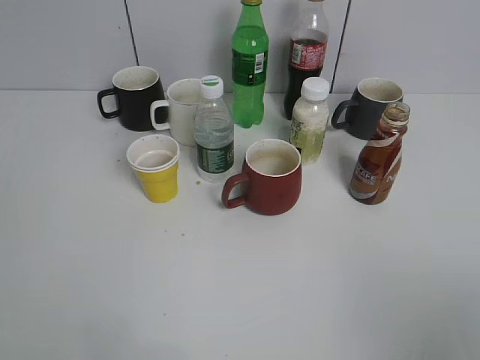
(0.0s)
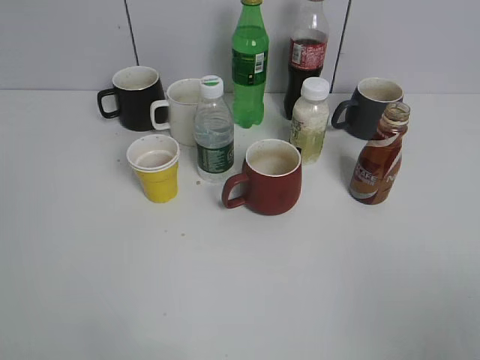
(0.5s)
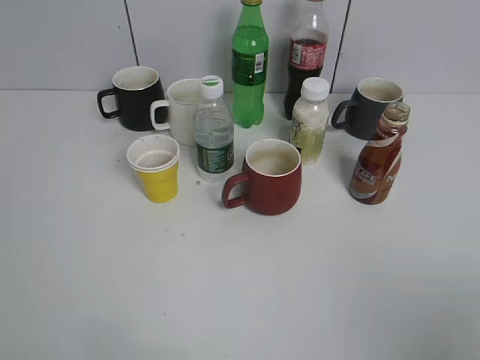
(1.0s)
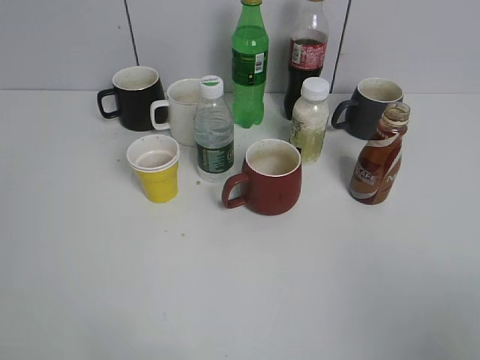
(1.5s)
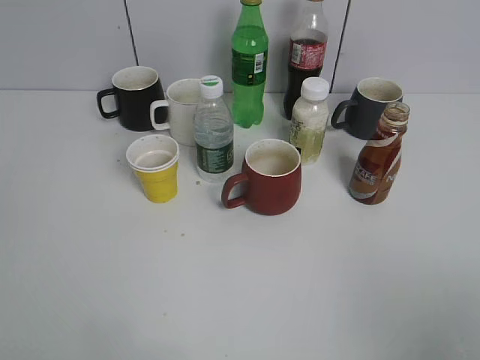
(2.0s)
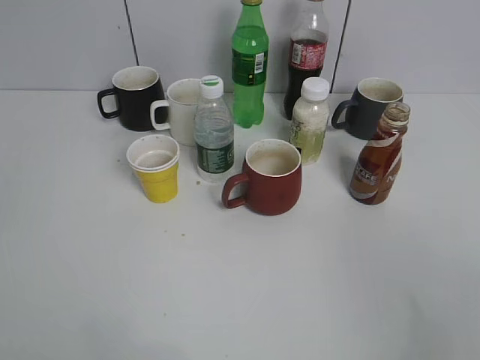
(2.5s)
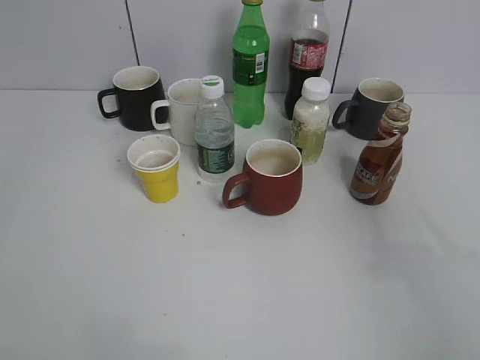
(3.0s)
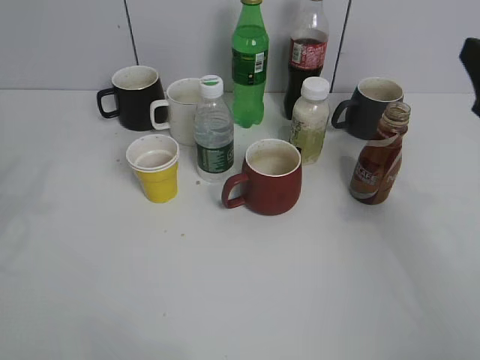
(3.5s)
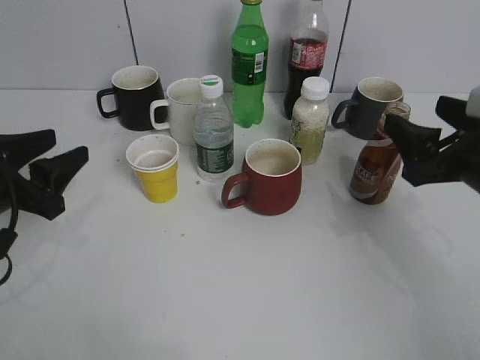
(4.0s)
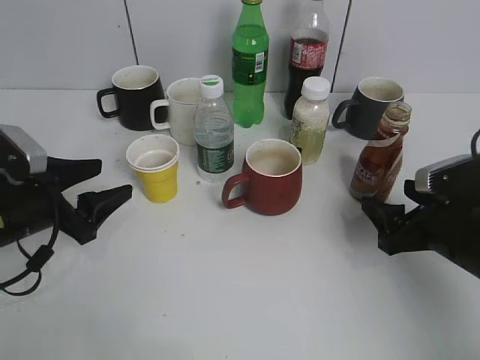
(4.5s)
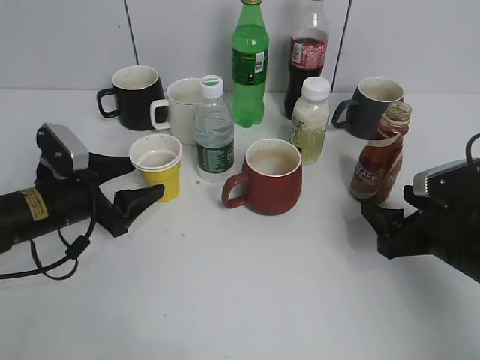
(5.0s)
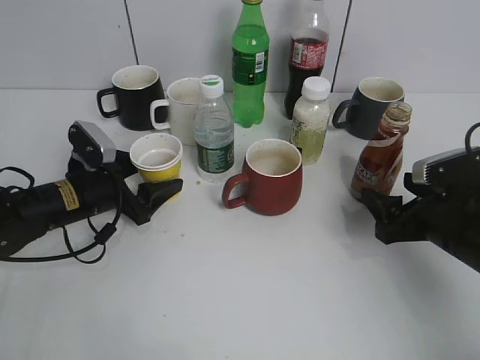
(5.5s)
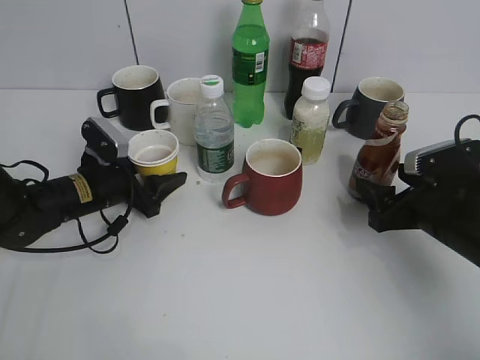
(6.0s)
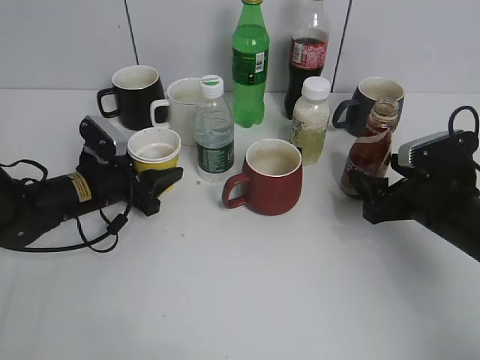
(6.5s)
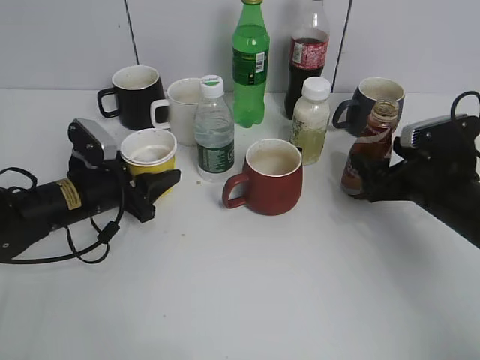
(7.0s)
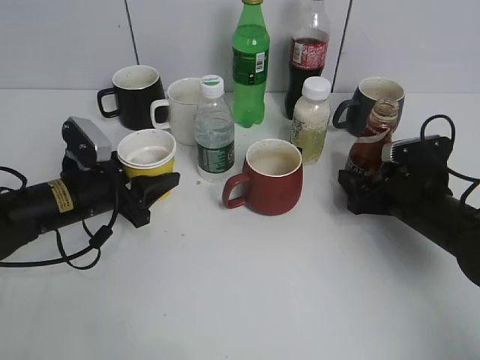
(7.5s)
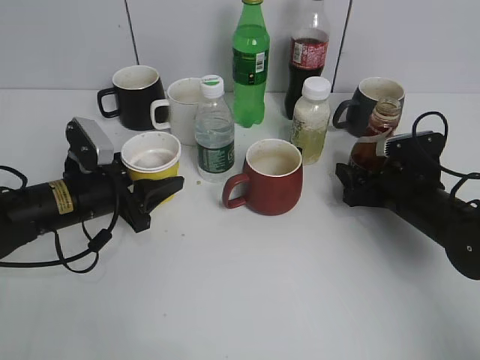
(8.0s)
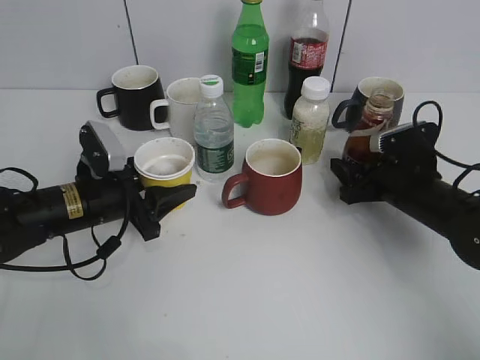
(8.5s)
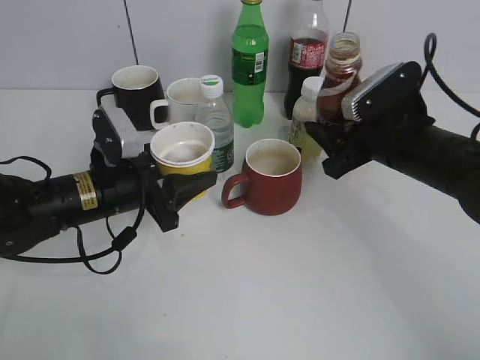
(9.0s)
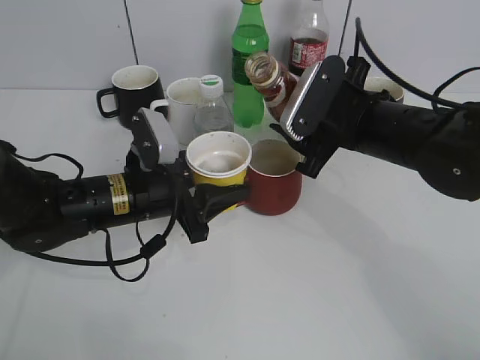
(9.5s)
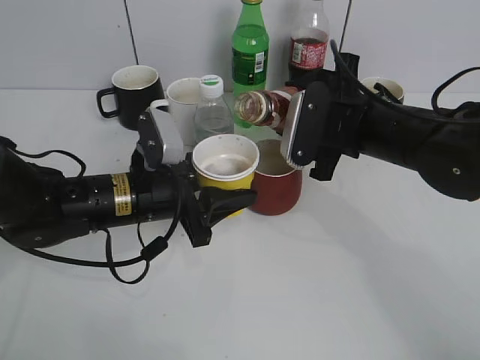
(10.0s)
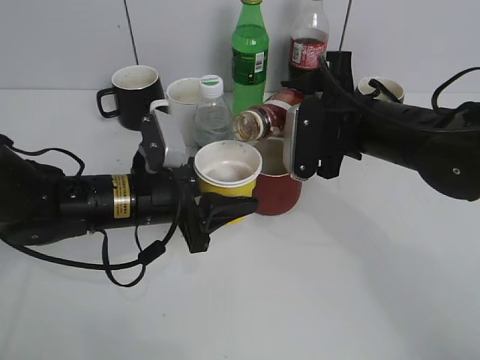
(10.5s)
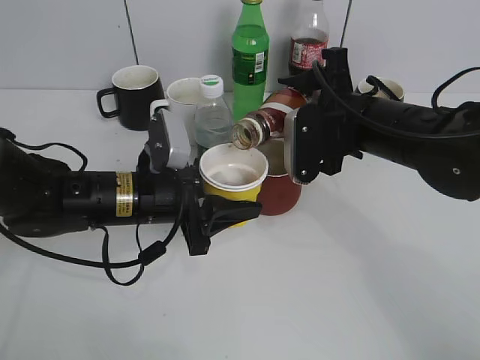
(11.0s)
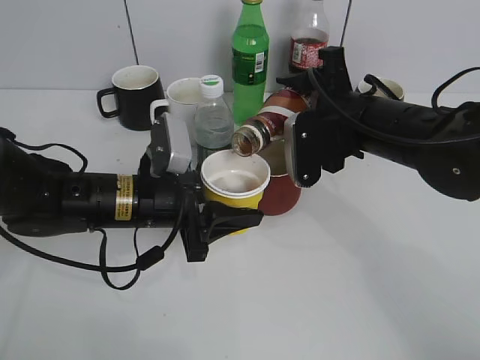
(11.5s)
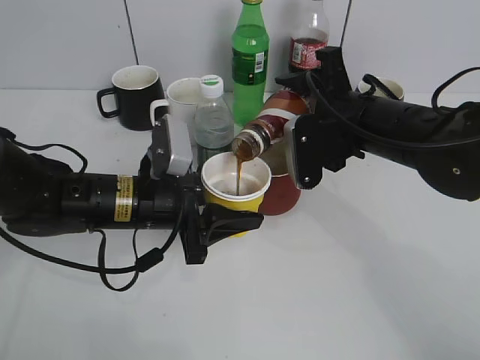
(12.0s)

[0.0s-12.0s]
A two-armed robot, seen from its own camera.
Step, 2.5s to 5.5s: Grasp the yellow paper cup with left gripper.
Step, 6.0s to 8.0s: Grasp the bottle with coffee with right gripper.
2.0s to 4.0s: Both grippers travel together forward and downward, roughly 25 cm.
4.0s to 6.0s: The left gripper goes roughly 15 cm forward, downward and to the right. The right gripper heads downward, covering approximately 10 cm.
6.0s to 8.0s: The left gripper closes up, while the right gripper heads forward, covering about 5 cm.
8.0s to 10.0s: The right gripper moves upward and to the left, approximately 15 cm, and closes up; the left gripper heads to the right, covering approximately 10 cm.

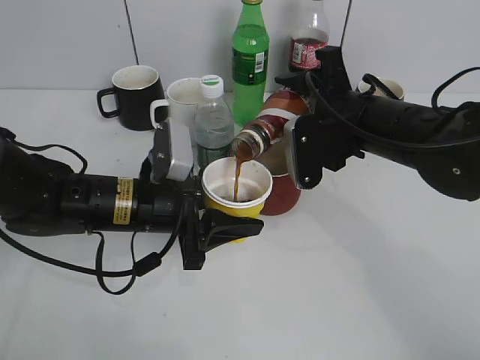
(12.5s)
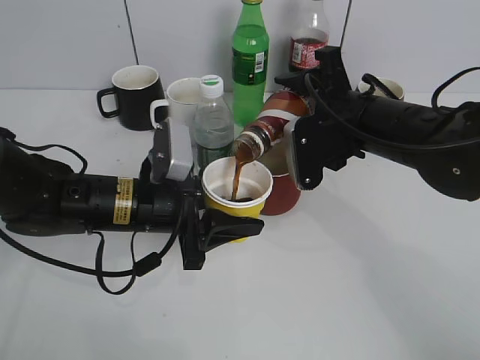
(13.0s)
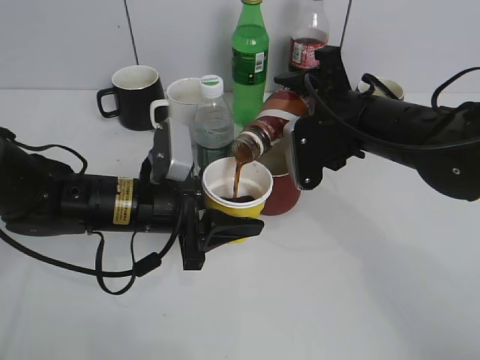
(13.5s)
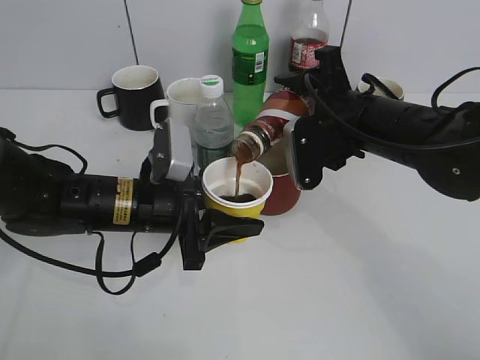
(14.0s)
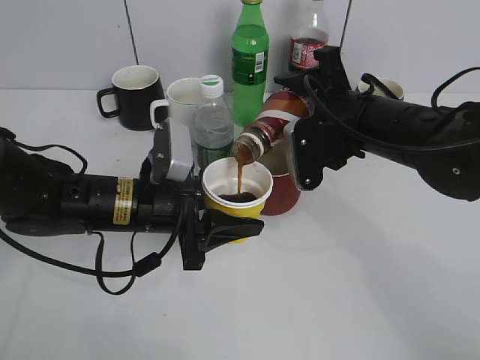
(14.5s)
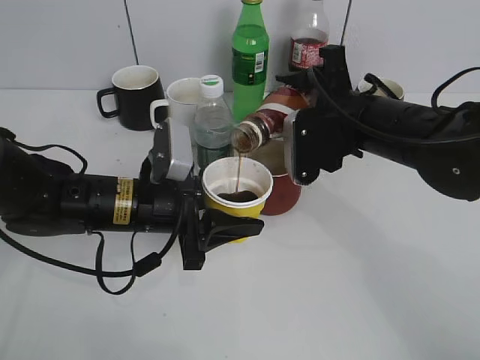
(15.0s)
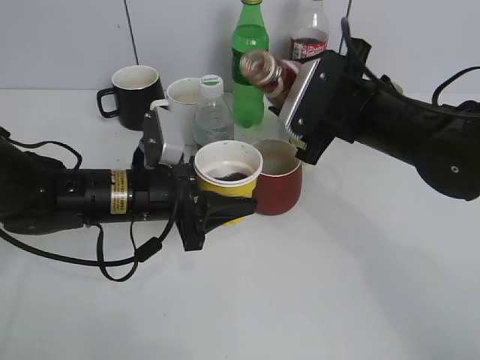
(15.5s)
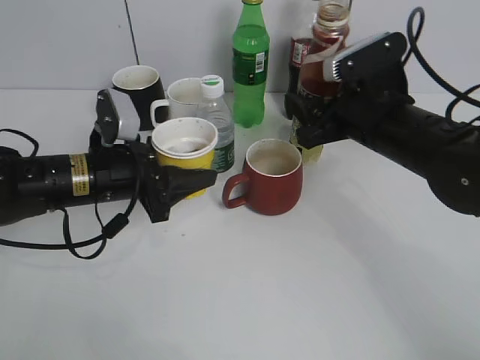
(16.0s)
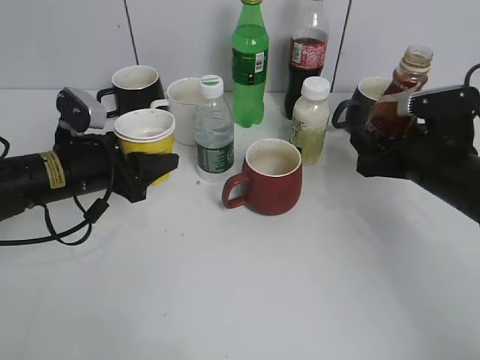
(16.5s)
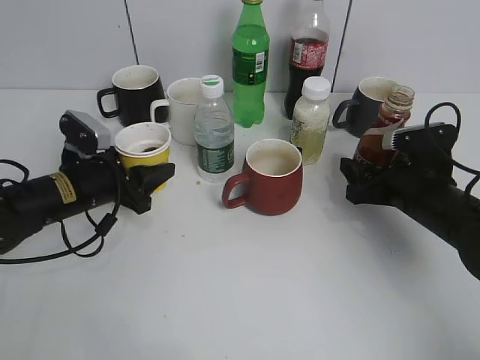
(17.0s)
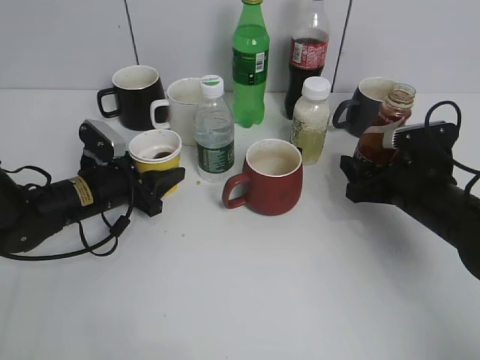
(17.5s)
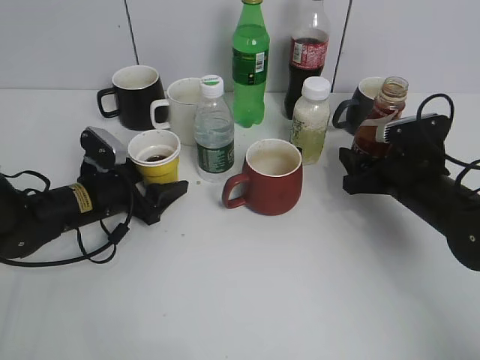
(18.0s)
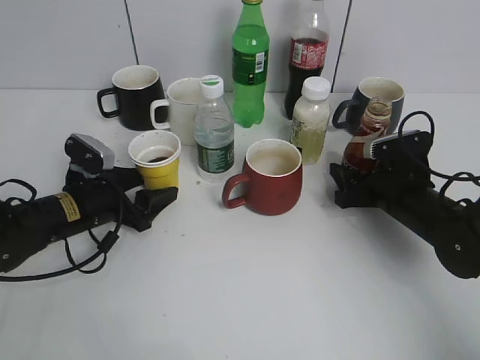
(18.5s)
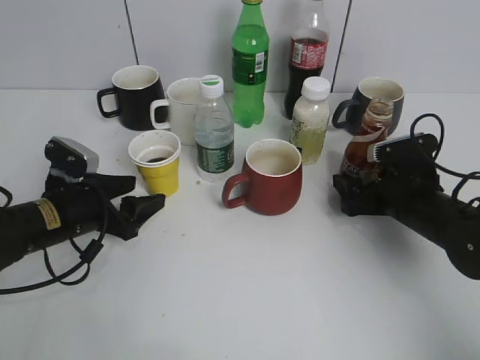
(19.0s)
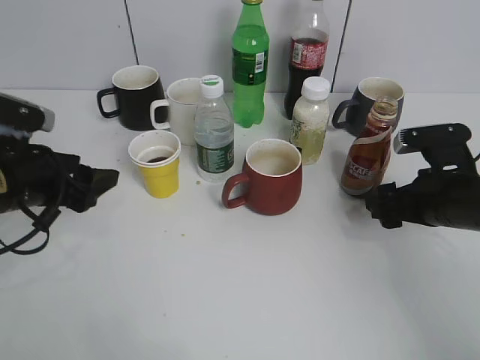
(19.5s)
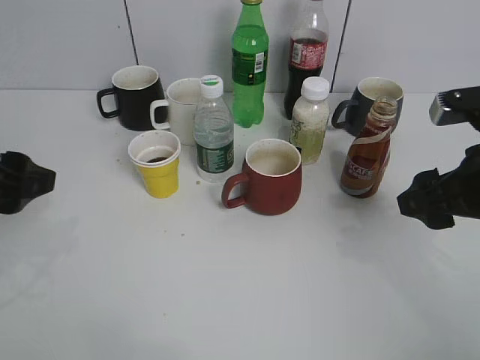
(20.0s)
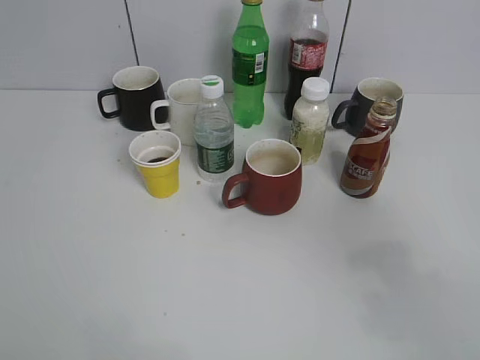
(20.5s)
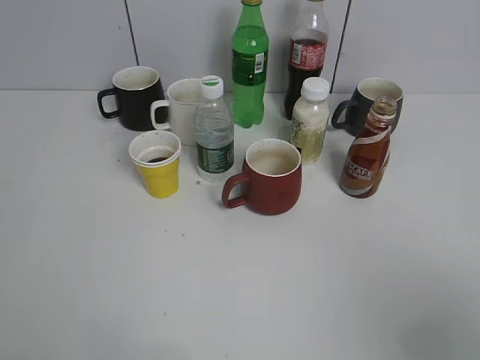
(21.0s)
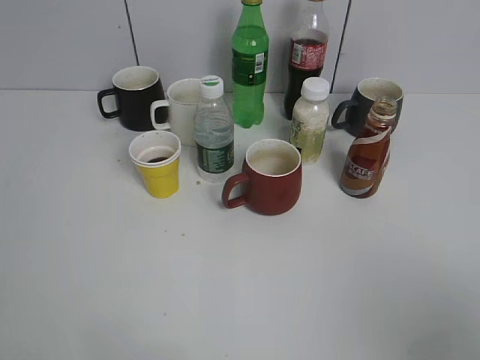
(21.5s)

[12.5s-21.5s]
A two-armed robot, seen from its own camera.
Step, 12.5s to 15.5s: Pour the coffee from bottle to cup with right gripper.
Step, 16.0s to 19.0s: Place the coffee bottle on the table with right gripper.
12.5s to 14.5s: The two grippers keep their place.
14.5s to 17.0s: The right gripper shifts some 15 cm downward and to the right, while the left gripper is displaced to the left and forward by some 10 cm.
17.0s to 19.5s: The right gripper opens. Meanwhile the left gripper is displaced upward and backward by about 10 cm, and opens its fingers.
19.5s to 21.5s: Both grippers travel together backward and upward, some 30 cm. The left gripper closes up.

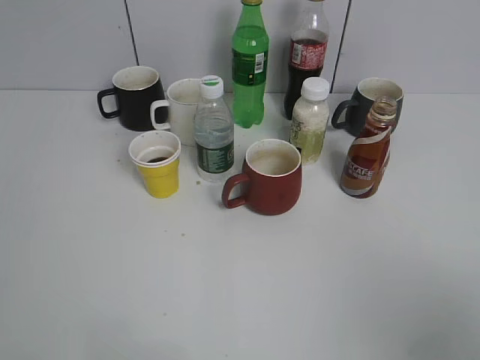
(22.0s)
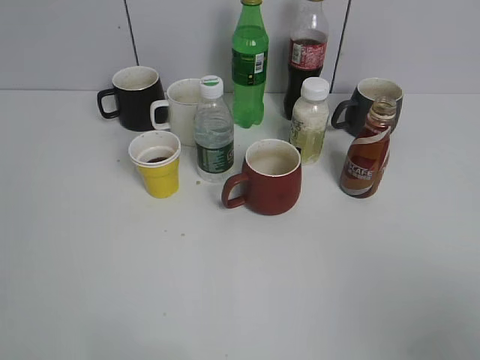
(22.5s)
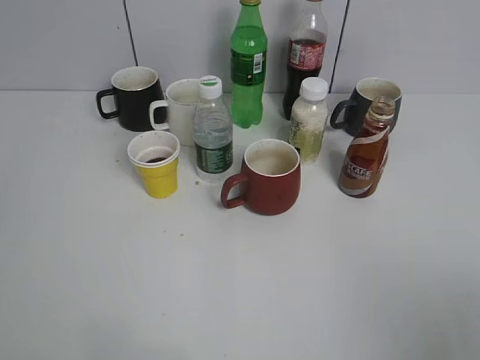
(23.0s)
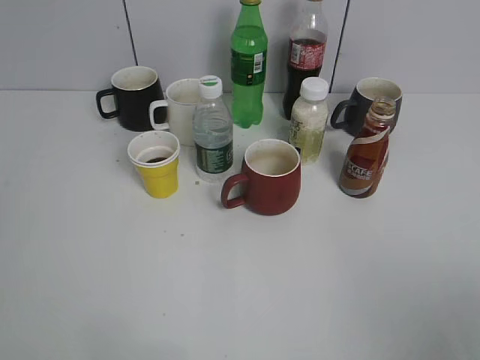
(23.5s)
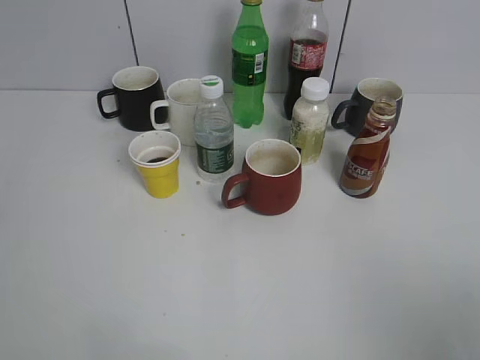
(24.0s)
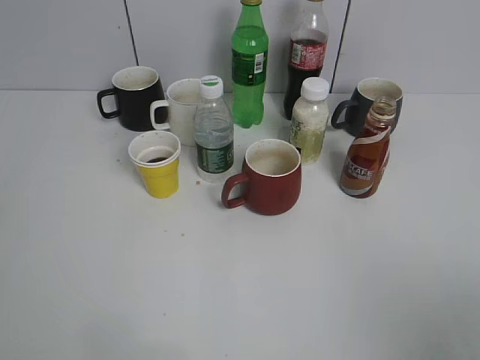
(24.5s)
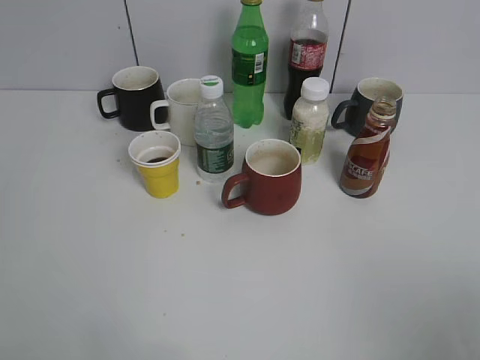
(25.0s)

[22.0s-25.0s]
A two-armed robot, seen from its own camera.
23.5s to 25.0s: Both grippers stay about where they are.

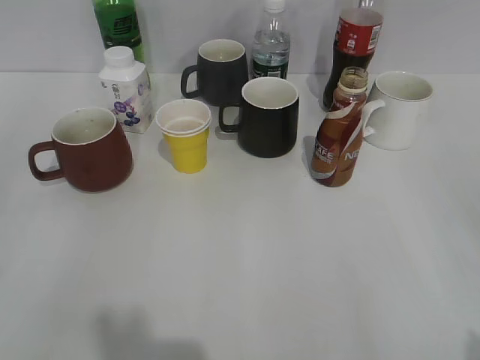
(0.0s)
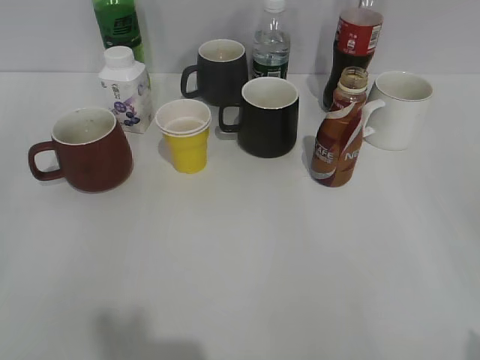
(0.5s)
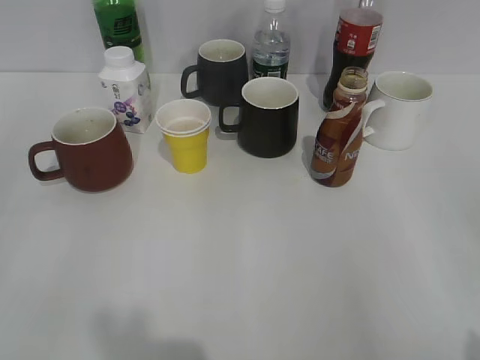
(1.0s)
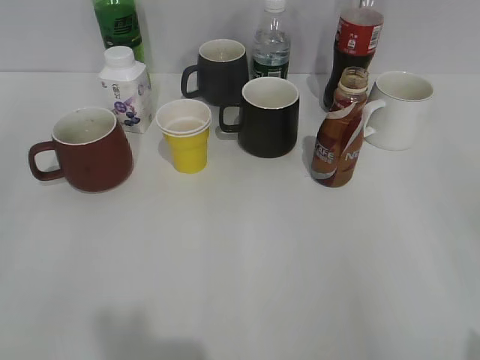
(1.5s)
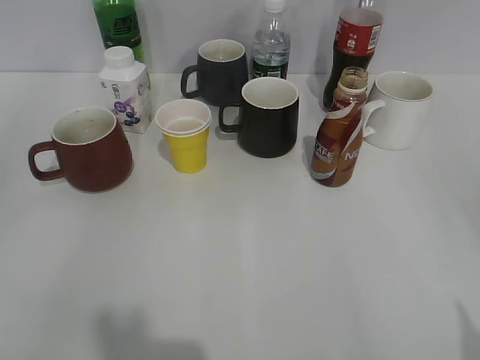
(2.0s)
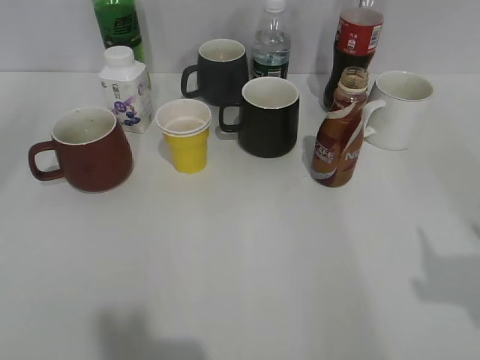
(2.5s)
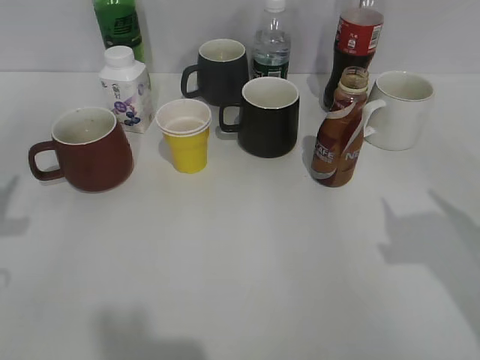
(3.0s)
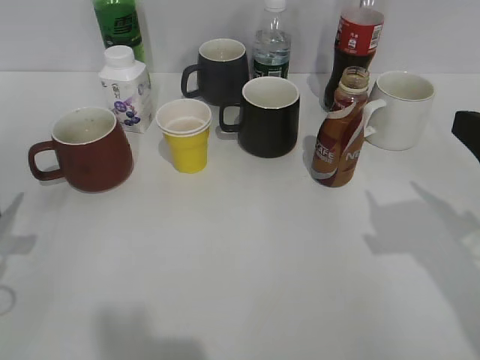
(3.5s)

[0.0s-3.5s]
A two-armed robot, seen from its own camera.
2.0s to 3.5s: The right gripper is displaced forward by about 15 cm. The left gripper travels forward and downward by roughly 20 cm.
